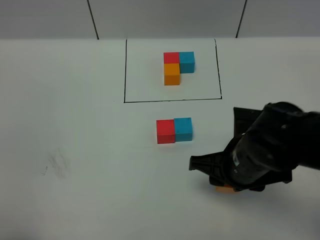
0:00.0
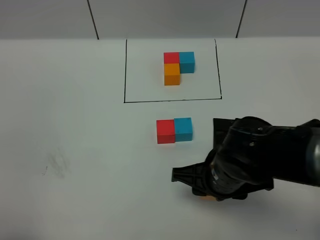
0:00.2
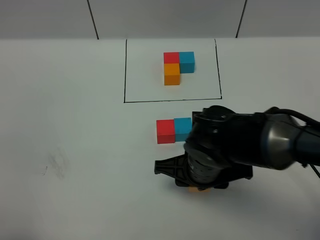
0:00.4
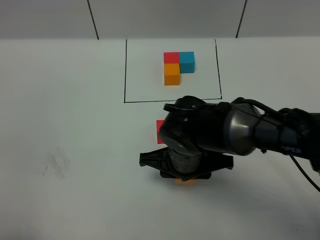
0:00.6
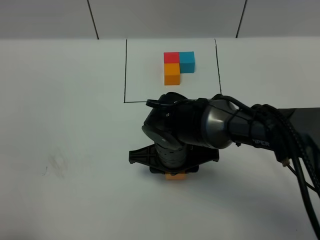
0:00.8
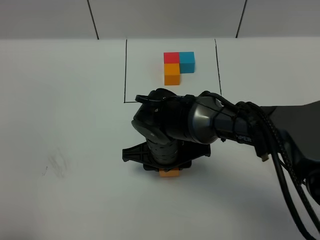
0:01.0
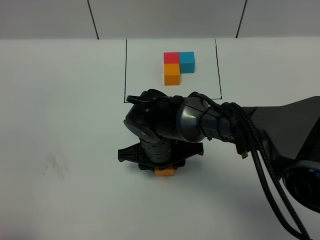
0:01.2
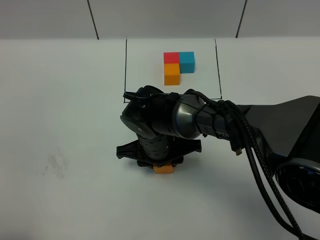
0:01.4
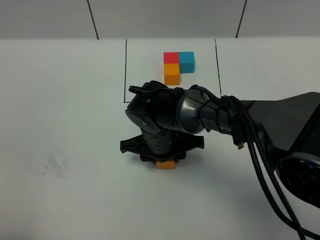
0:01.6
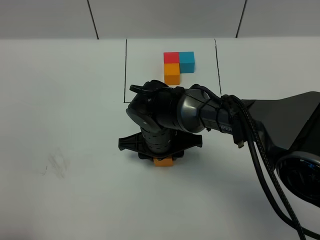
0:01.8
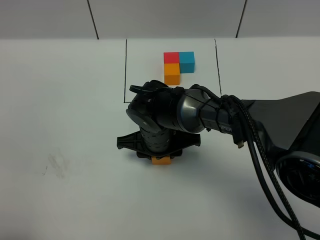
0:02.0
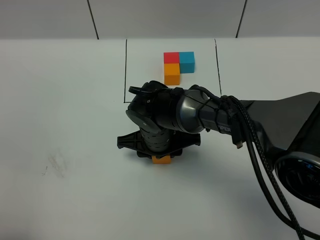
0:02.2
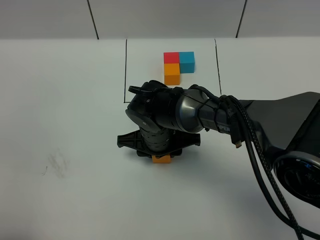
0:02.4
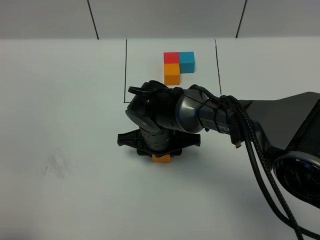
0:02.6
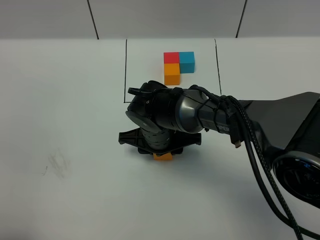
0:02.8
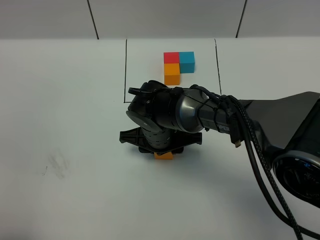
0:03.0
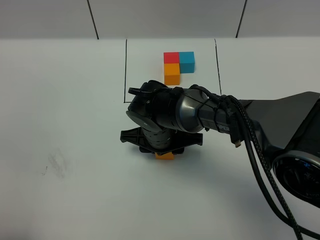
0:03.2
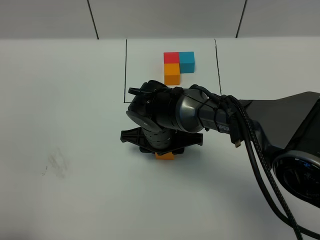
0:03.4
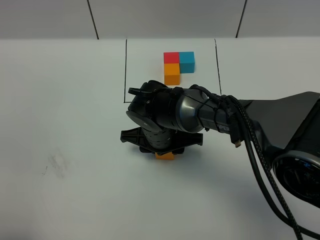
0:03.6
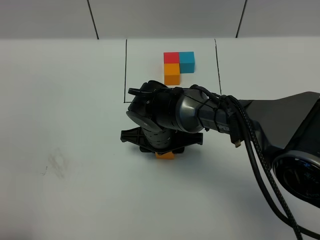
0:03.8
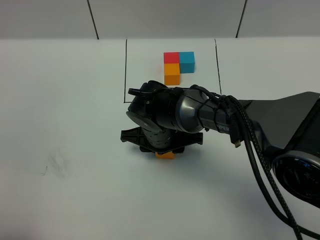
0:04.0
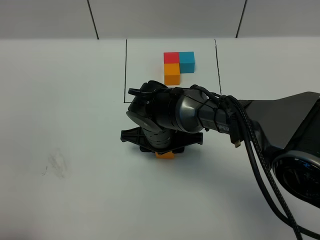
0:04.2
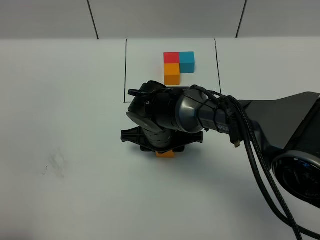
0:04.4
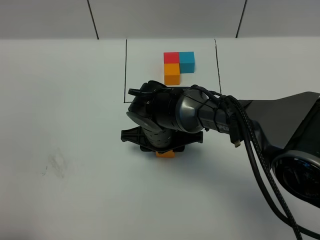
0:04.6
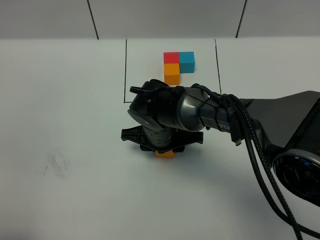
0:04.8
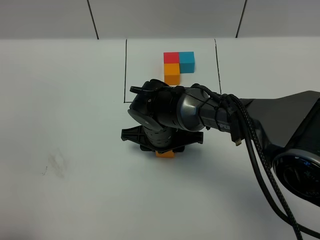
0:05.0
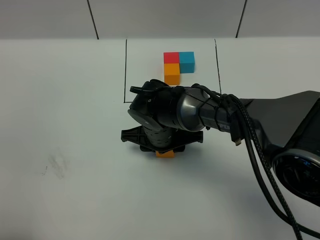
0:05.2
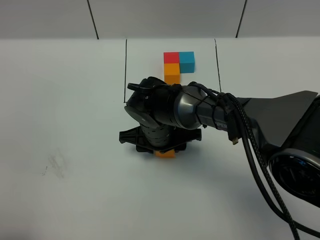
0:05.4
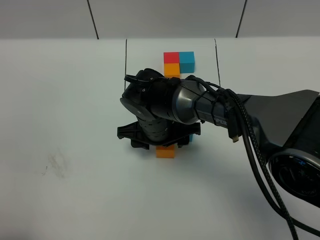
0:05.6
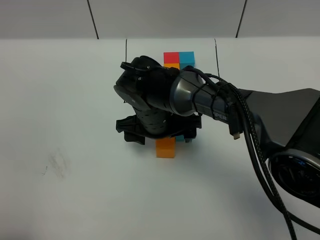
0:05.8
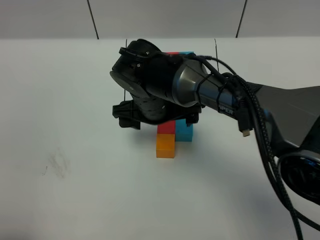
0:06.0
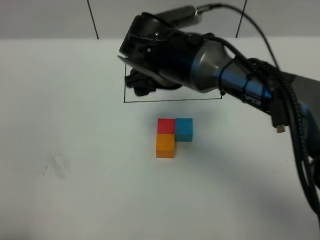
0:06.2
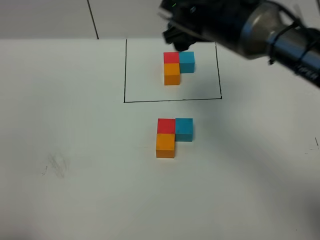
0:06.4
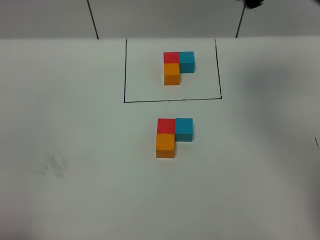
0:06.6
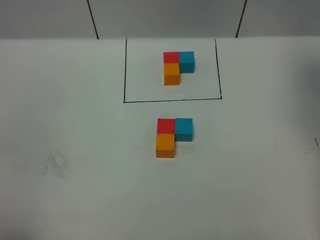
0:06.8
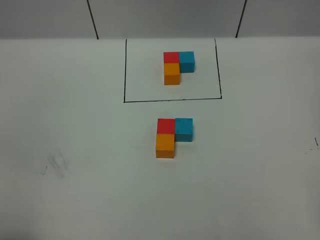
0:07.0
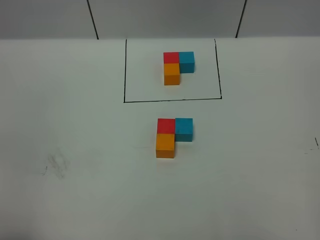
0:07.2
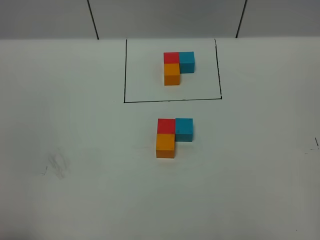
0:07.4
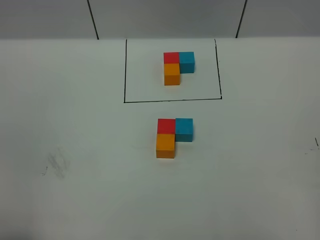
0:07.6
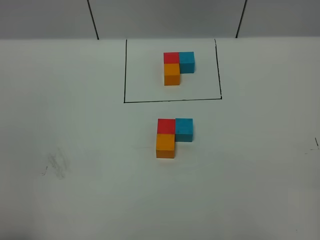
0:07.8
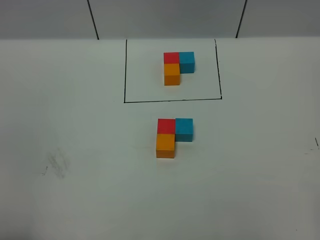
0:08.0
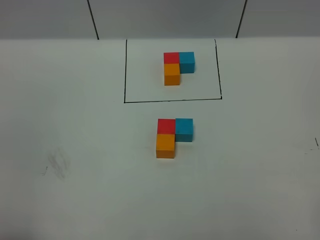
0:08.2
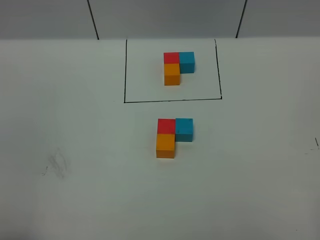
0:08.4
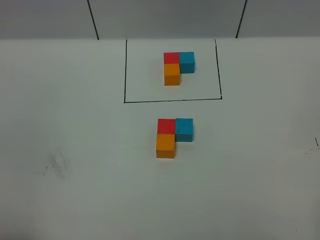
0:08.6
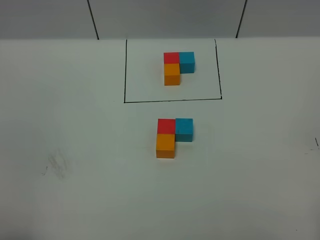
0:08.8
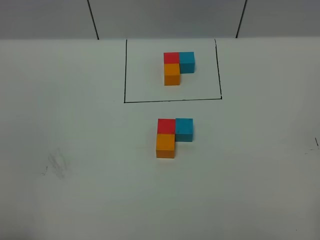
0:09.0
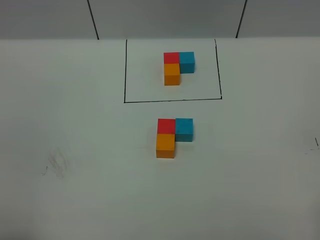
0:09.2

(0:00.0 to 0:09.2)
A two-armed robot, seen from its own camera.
Task of the whole recording: According to the building block template in front, assemble the scattered blocks together.
Step, 0:00.0 - 0:06.0: Put the orange cube in the front of the red cube.
0:00.0 - 0:01.6: The right gripper heads to the left, forward and downward, covering approximately 15 cm.
0:01.6 - 0:03.0: There are only small adjustments of the grippers.
0:03.0 - 0:04.6: The two grippers keep their place.
0:04.6 - 0:06.2: The right gripper is displaced upward by approximately 15 cm, and opens up.
0:06.2 - 0:07.6: The right gripper goes some 50 cm to the right, backward and upward.
